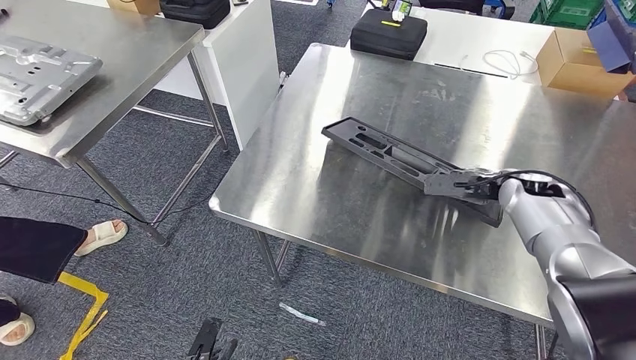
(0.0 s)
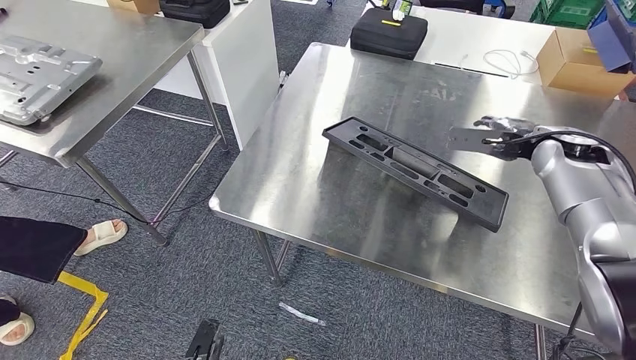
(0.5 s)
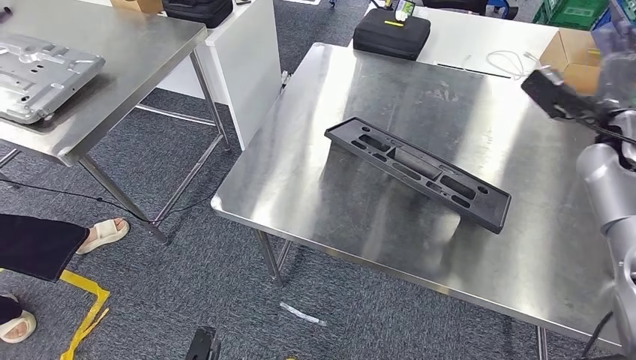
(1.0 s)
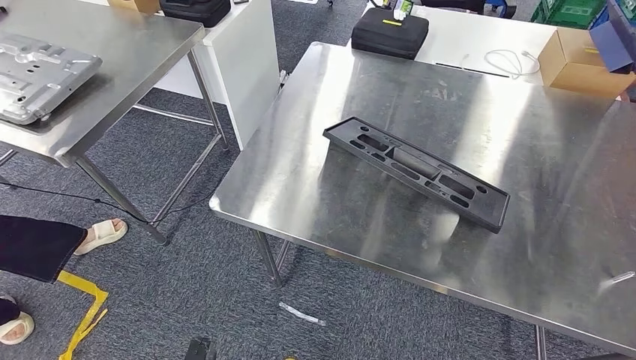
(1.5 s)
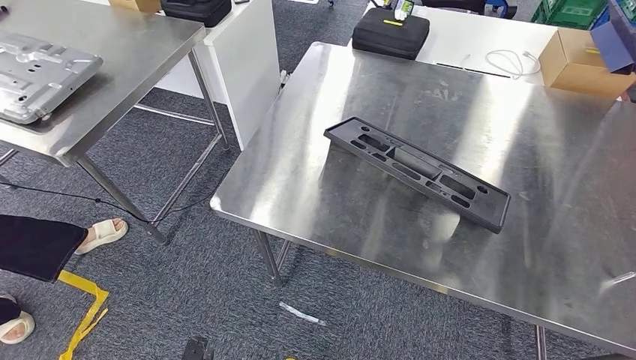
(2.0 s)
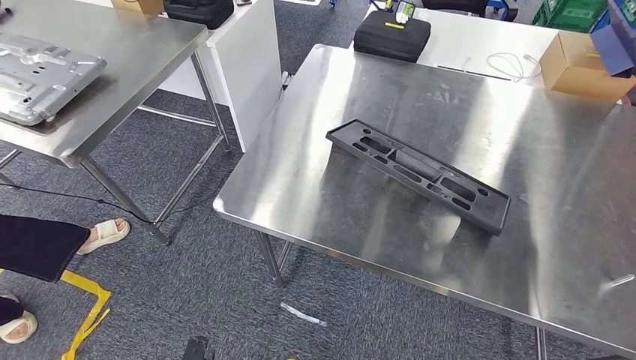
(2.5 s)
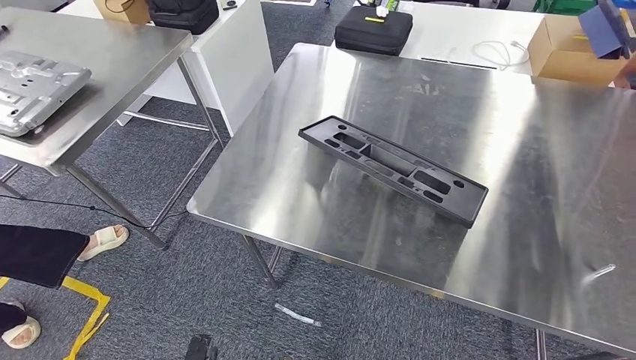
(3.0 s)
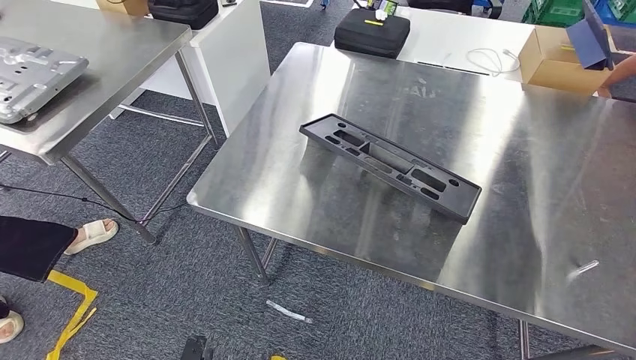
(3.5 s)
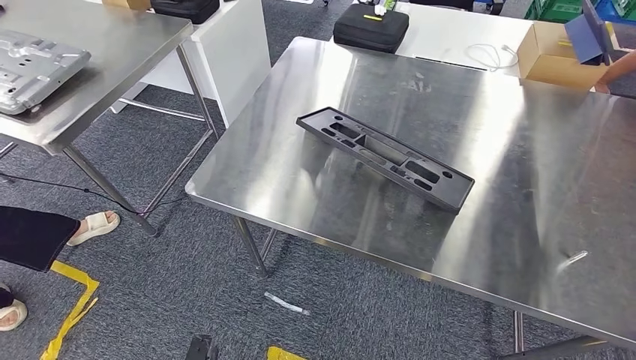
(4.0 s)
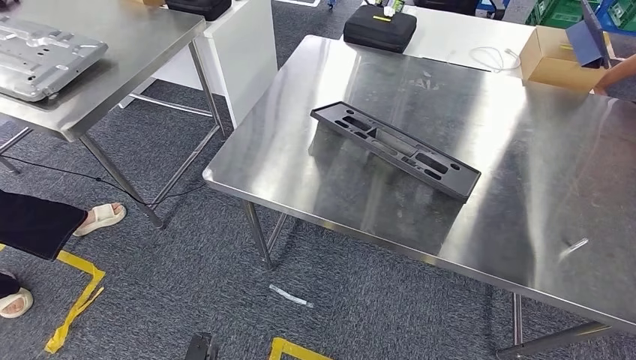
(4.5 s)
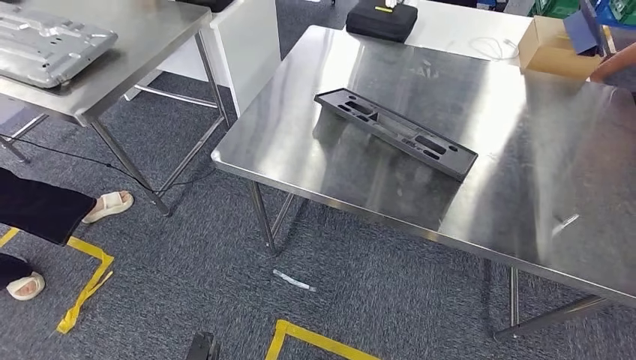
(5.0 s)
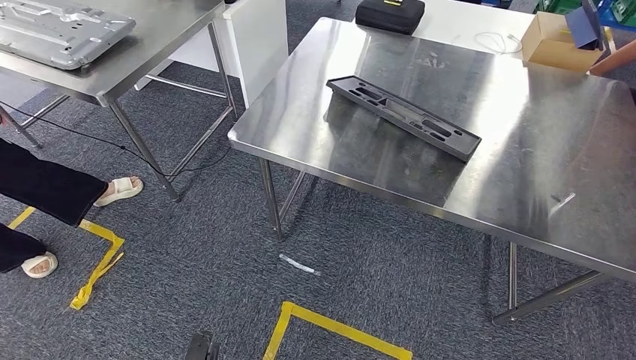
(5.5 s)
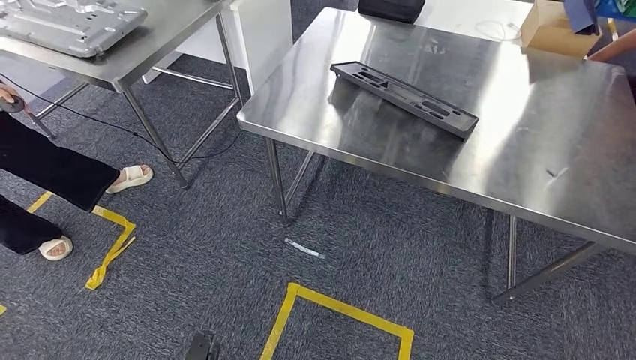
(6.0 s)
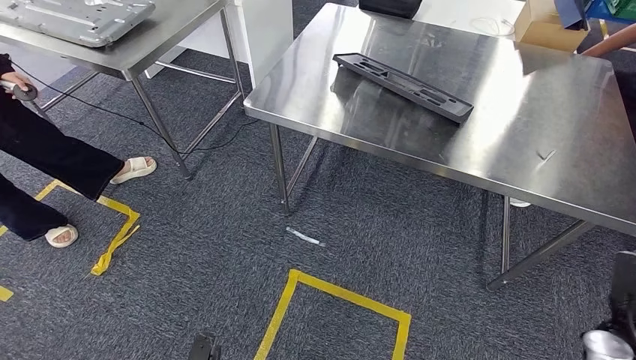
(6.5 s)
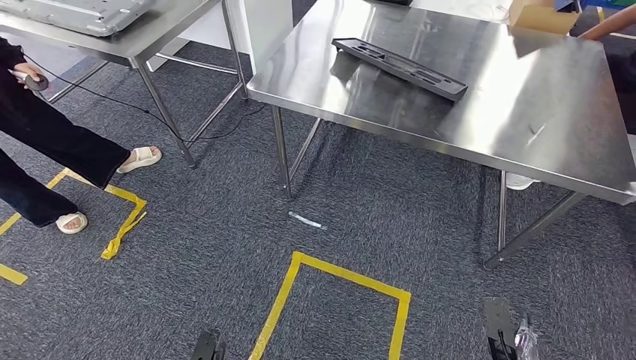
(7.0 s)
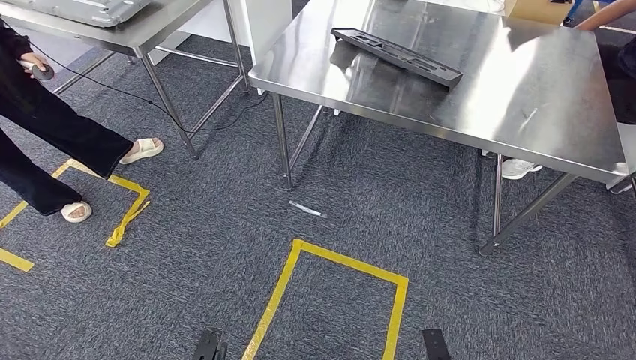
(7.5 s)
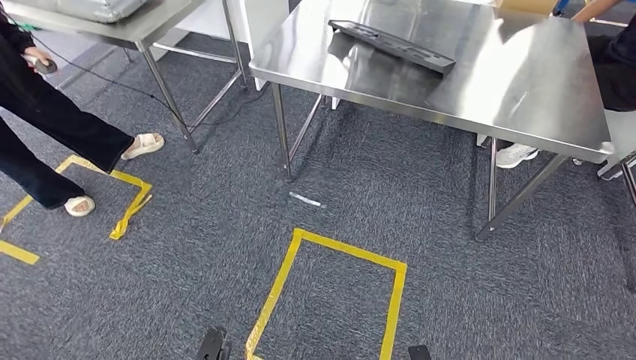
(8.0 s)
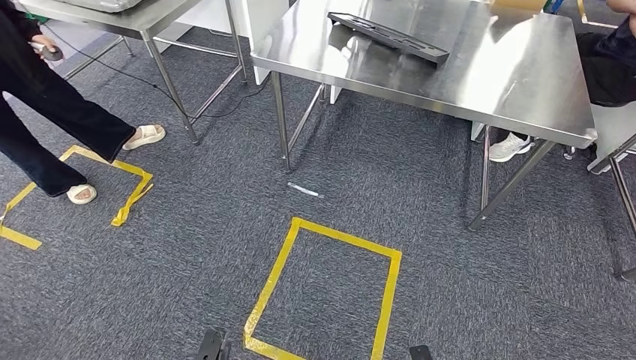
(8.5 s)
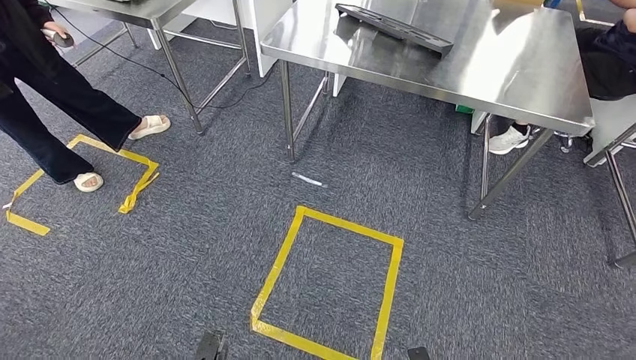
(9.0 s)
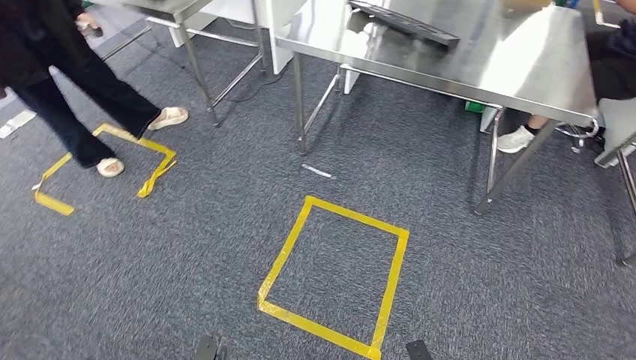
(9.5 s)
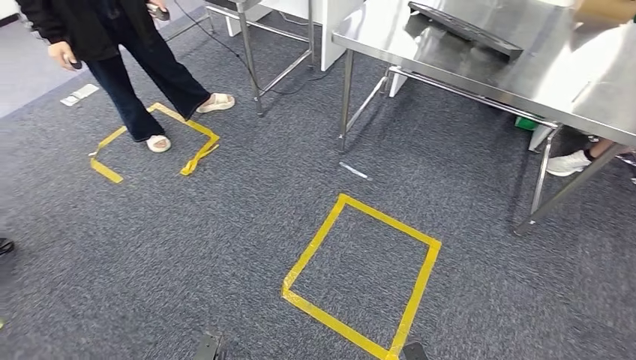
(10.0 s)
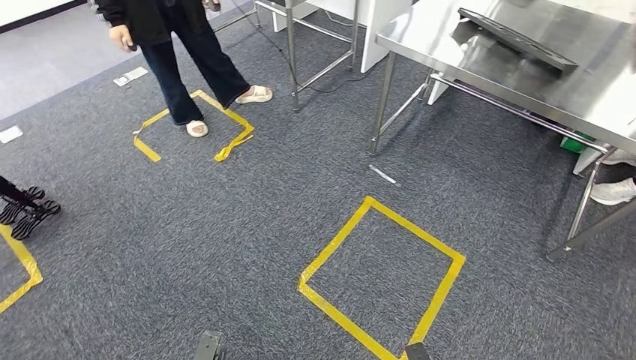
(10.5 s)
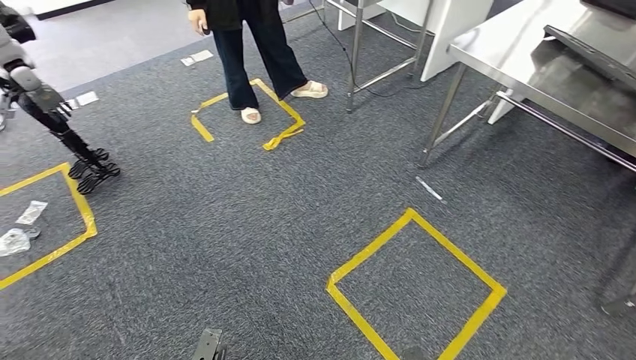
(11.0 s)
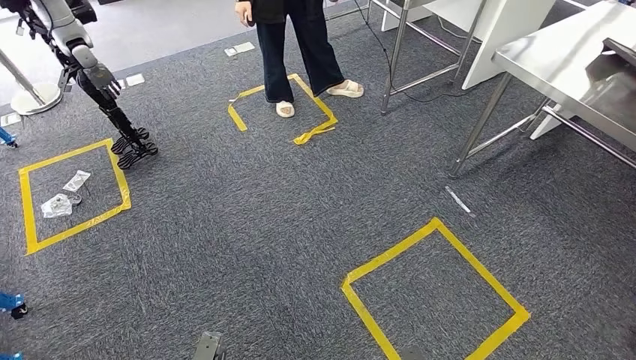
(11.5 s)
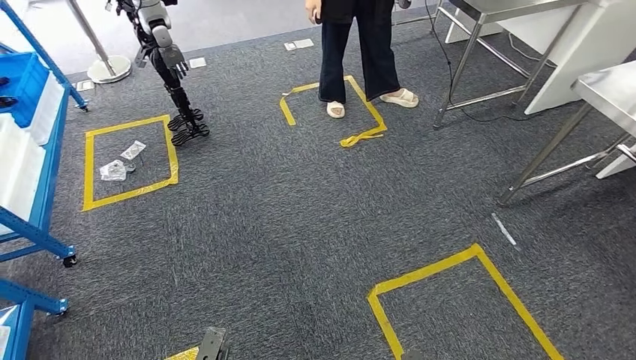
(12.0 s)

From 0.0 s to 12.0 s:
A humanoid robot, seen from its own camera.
From 0.0 s to 2.0 s: The right hand is displaced to the right and backward by some 30 cm.

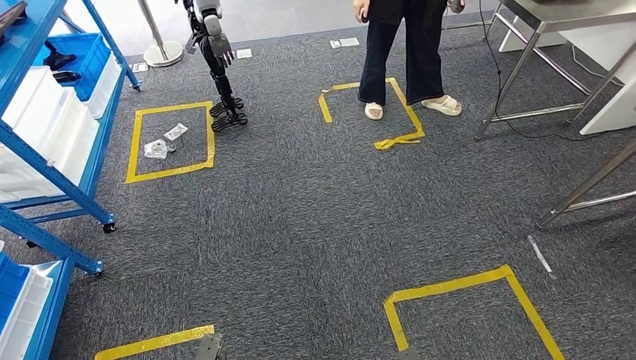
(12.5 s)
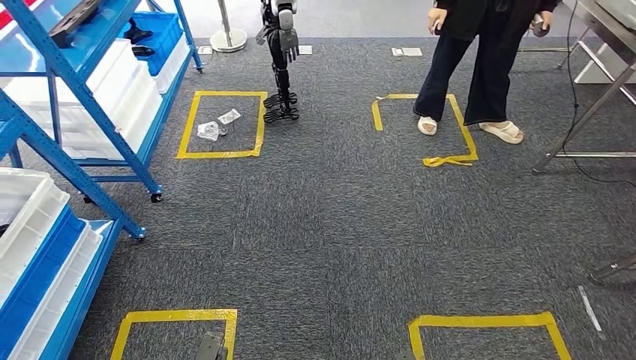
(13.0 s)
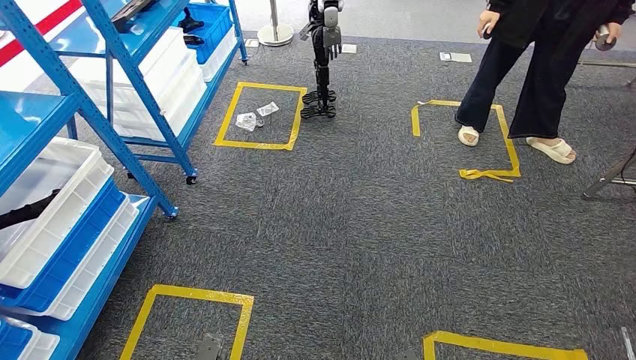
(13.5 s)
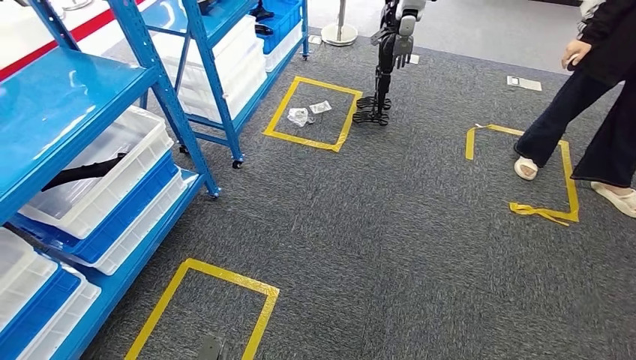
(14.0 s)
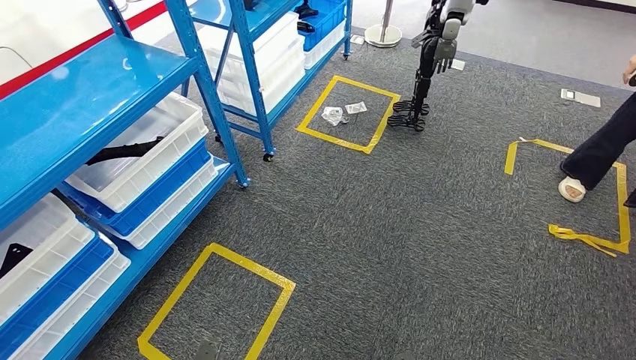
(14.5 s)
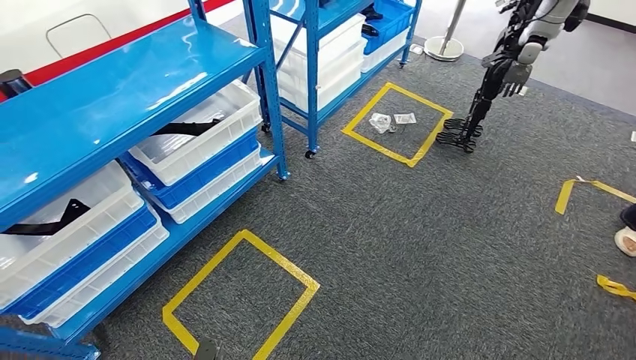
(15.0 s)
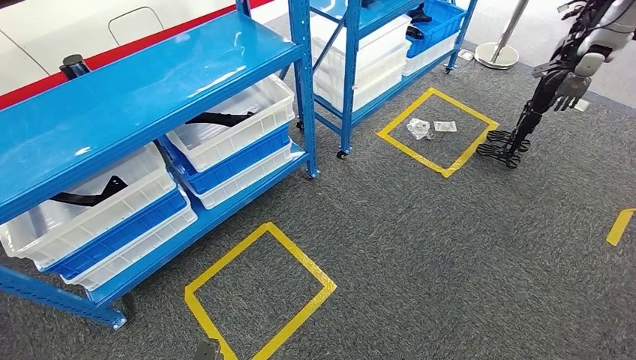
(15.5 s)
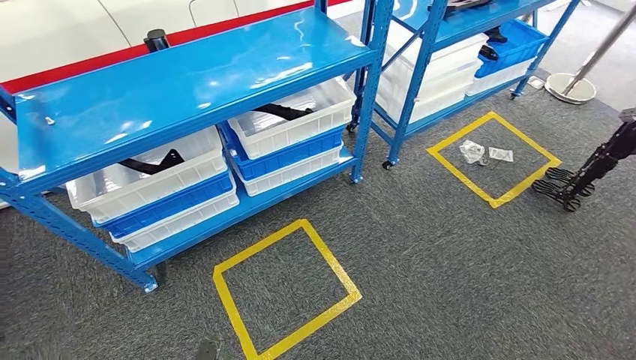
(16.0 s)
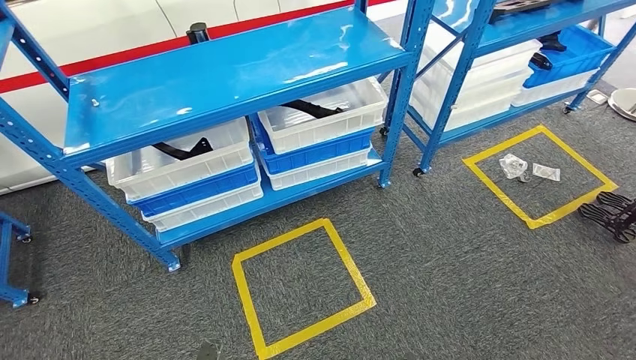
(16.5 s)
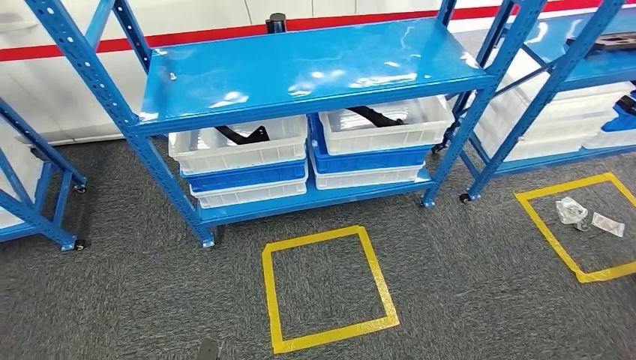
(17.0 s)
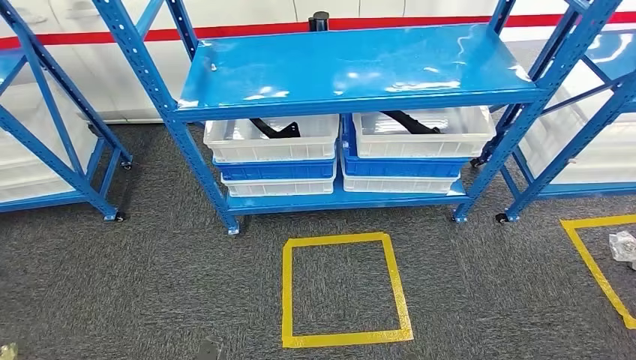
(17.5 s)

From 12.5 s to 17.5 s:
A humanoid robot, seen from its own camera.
Step, from 12.5 s to 17.0 s: Move to the initial position of the shelf.
